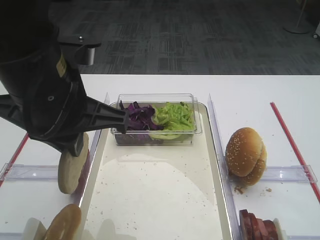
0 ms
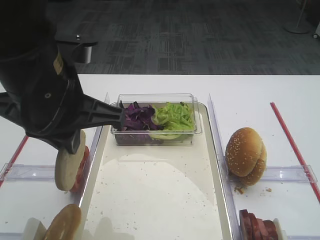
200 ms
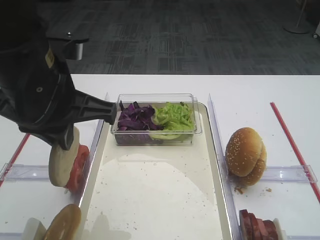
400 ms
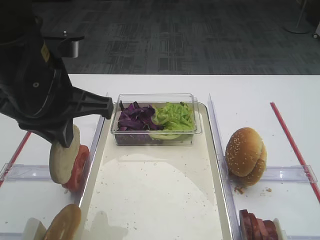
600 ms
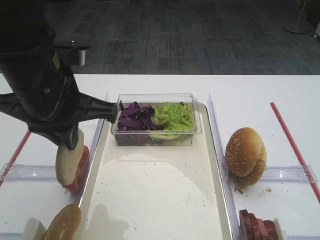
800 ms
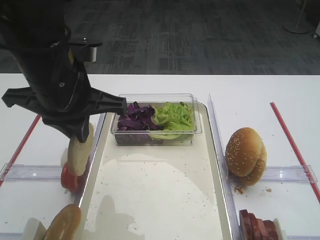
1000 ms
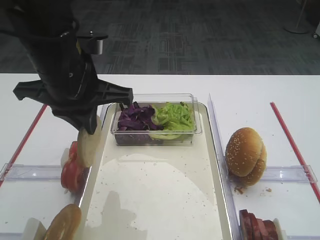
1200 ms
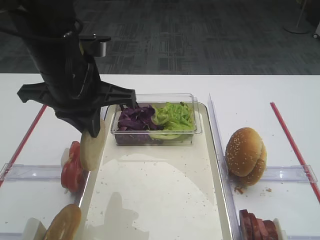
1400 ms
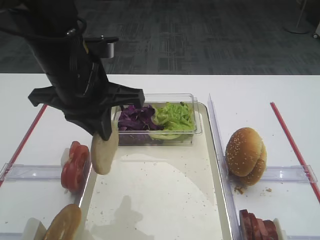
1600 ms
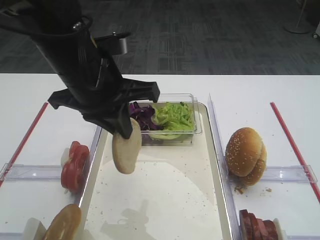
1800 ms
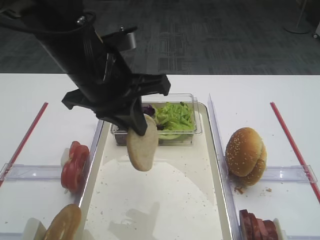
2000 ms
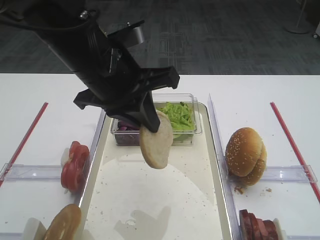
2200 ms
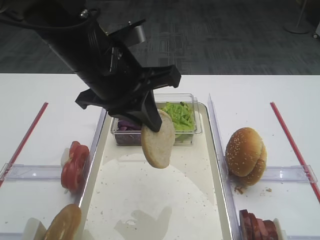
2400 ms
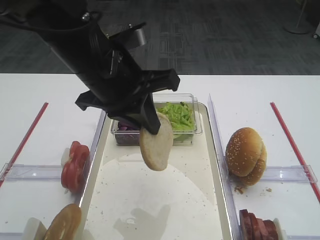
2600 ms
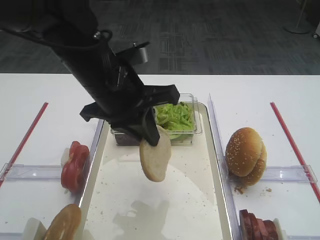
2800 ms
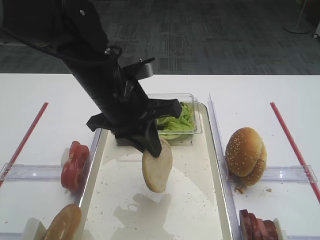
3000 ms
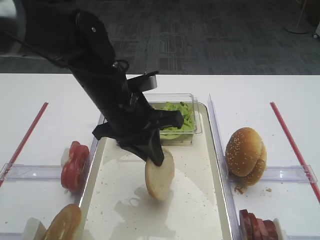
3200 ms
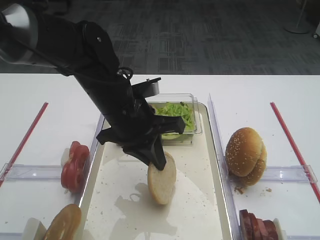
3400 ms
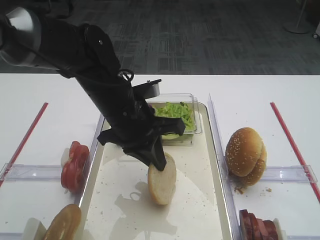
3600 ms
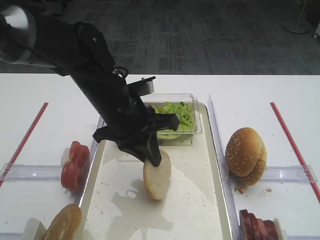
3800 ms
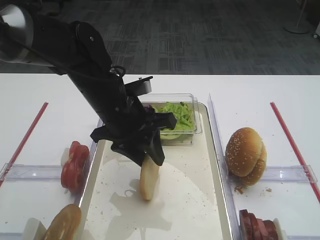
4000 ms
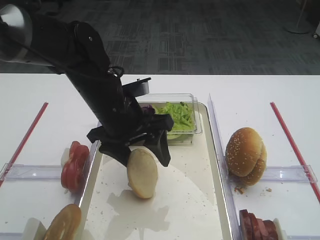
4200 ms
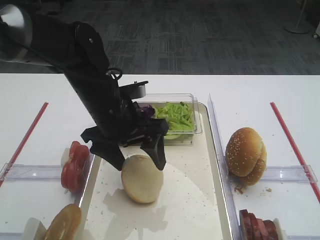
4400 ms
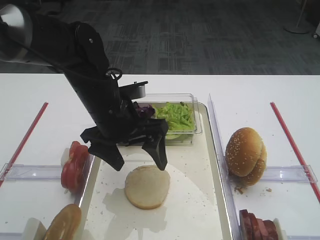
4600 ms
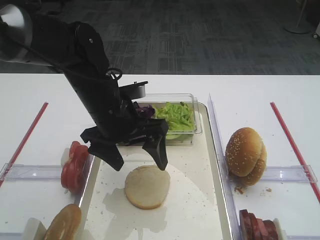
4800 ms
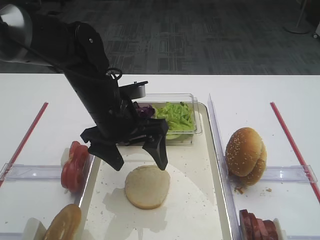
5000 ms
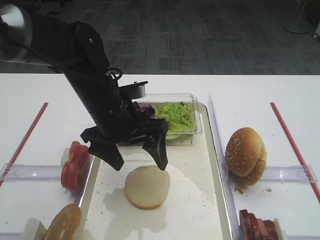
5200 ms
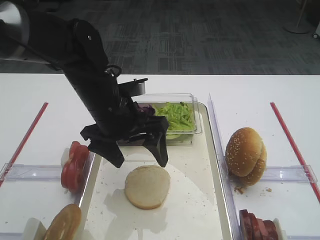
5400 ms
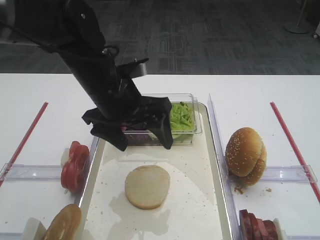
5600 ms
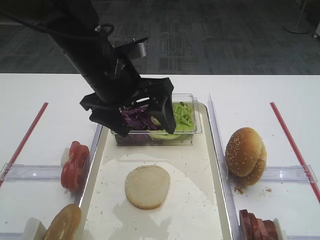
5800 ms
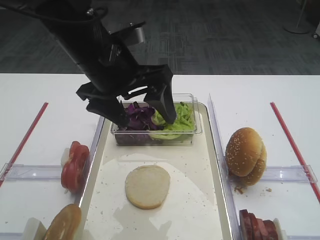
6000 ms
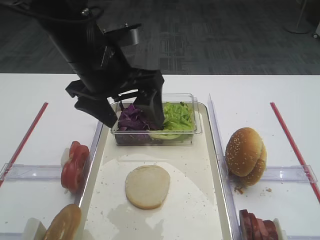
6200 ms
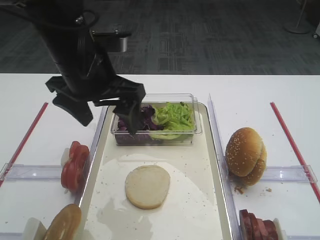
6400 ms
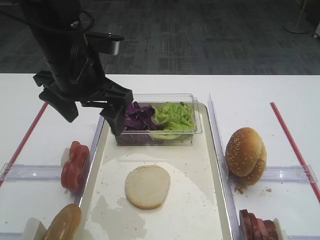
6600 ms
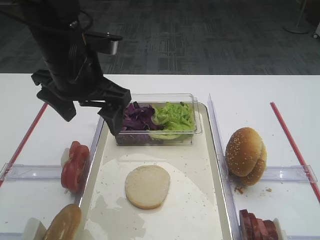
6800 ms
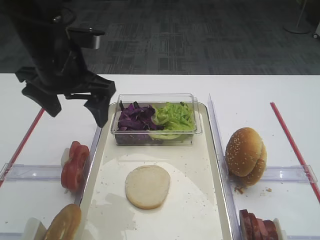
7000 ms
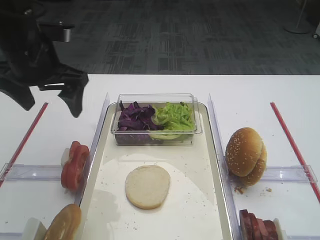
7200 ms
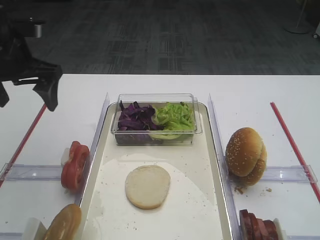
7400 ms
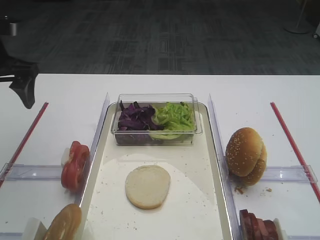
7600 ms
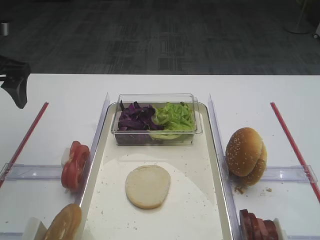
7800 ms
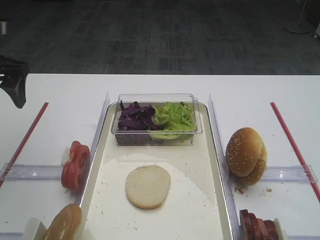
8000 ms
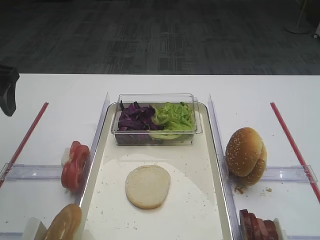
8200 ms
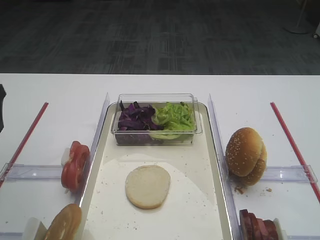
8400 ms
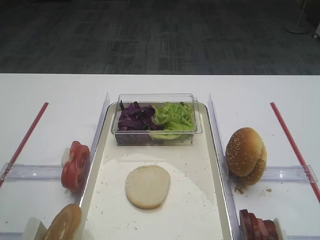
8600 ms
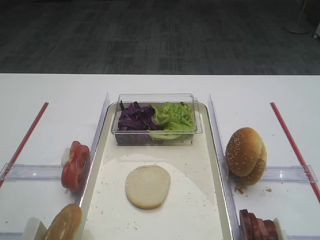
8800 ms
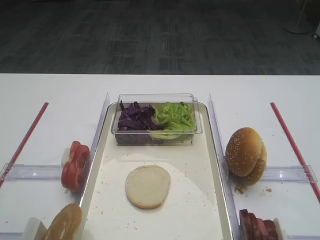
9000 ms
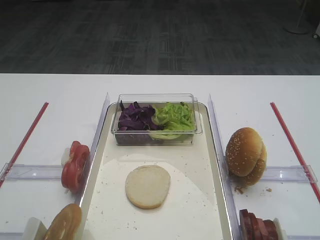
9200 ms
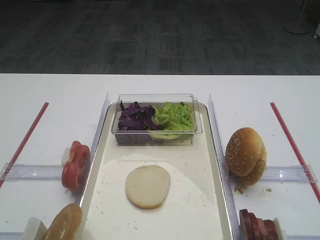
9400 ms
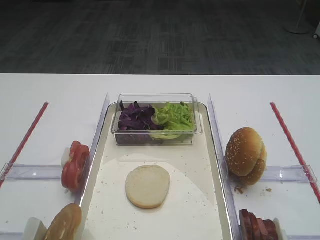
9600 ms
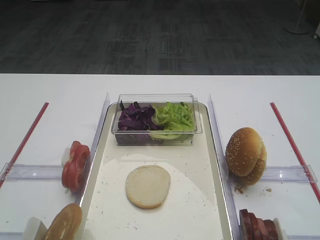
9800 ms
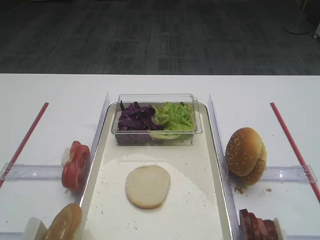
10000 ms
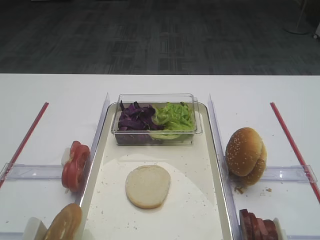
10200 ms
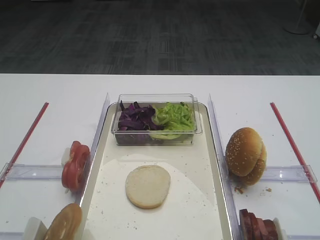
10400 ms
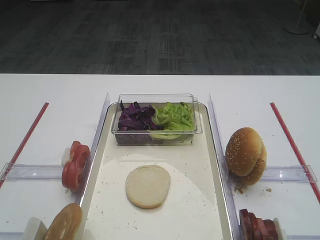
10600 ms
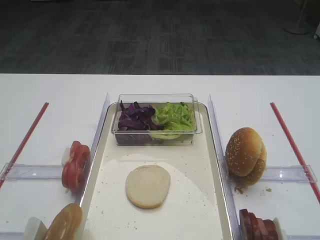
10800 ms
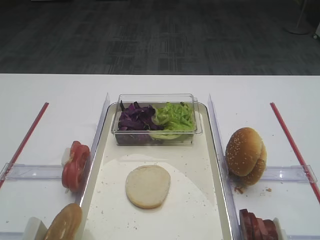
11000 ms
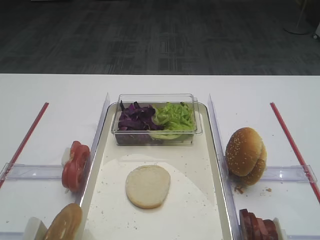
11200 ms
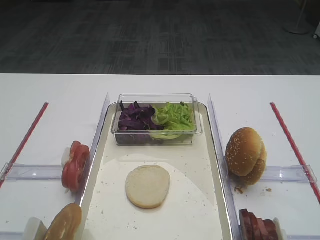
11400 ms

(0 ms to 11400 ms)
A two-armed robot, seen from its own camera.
Step, 0 ms - 4800 ms: Place the bread slice on the tray with the left gripper.
0 ms - 1400 ms: The left gripper shifts roughly 5 cm forward.
2800 ms - 4200 ms: The left gripper goes about 5 cm downward, and opens its fingers.
4200 ms - 5600 ms: The grippers move only a little.
5600 ms - 7200 ms: The left gripper travels to the left by roughly 10 cm.
7200 ms - 8600 ms: The left gripper heads backward and to the left, covering roughly 15 cm.

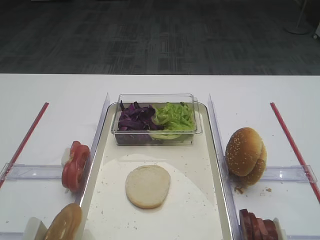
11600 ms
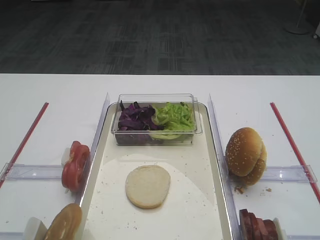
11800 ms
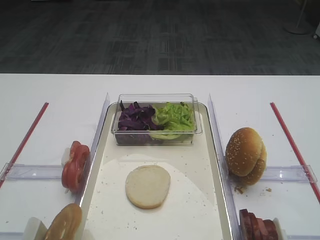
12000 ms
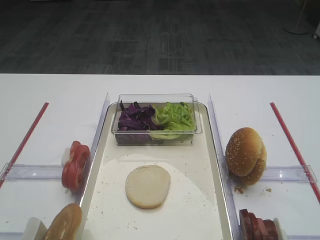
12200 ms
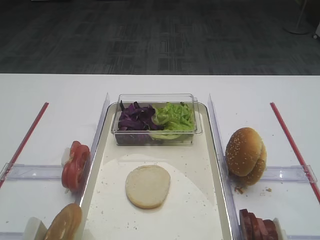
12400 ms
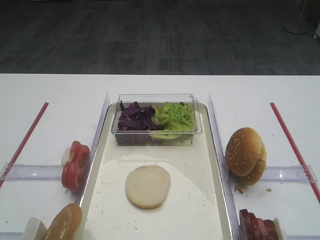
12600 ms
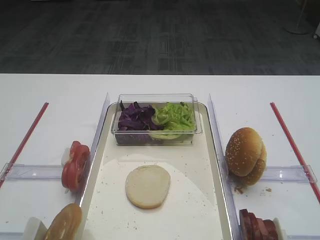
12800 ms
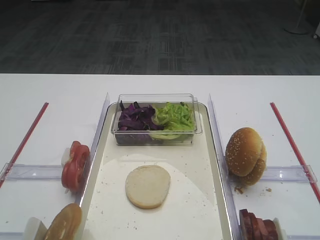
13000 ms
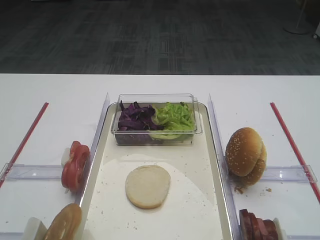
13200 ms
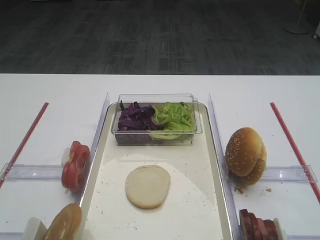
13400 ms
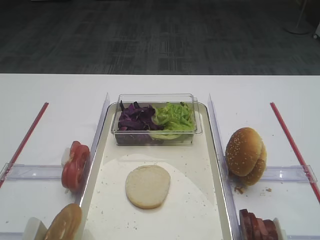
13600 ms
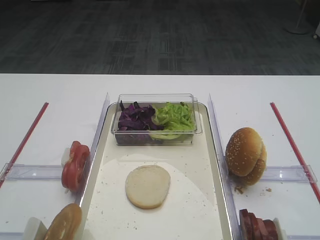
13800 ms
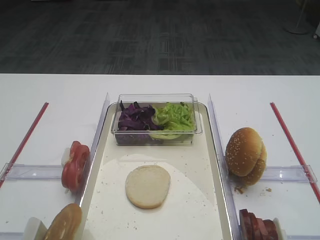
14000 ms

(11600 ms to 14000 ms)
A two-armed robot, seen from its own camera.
11600 ms - 14000 ms: The two grippers keep their place.

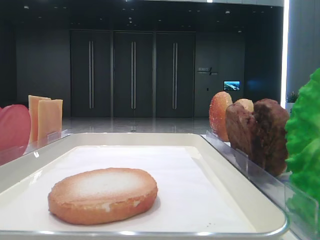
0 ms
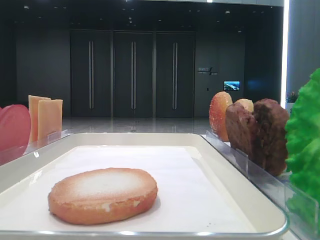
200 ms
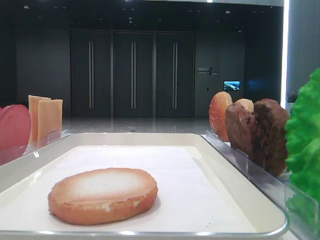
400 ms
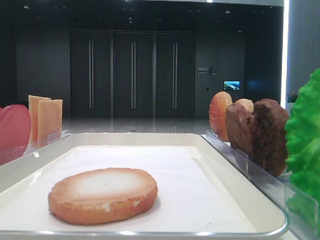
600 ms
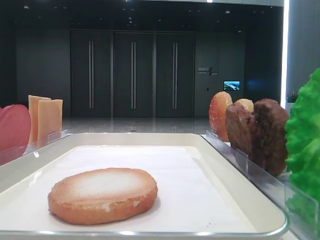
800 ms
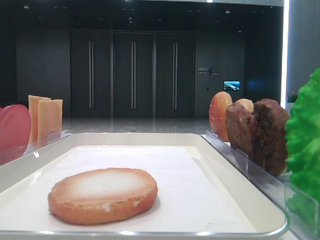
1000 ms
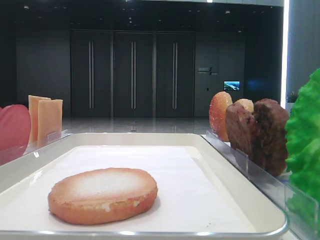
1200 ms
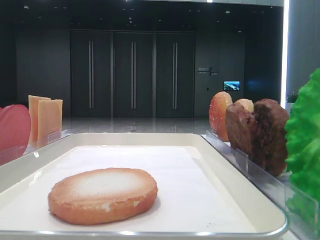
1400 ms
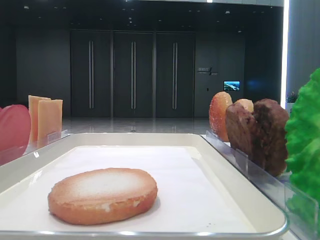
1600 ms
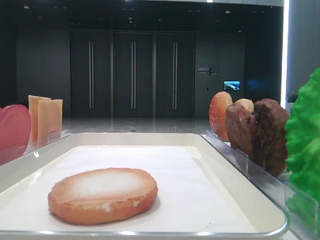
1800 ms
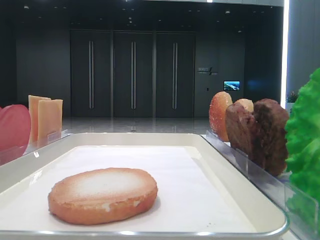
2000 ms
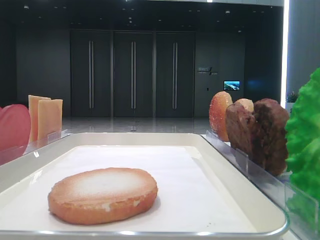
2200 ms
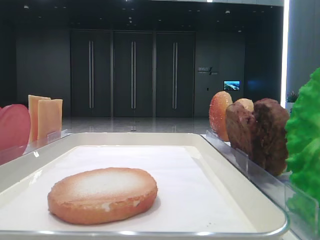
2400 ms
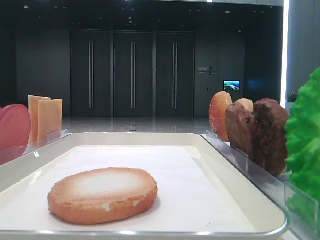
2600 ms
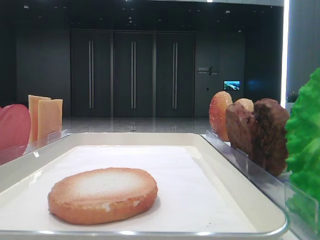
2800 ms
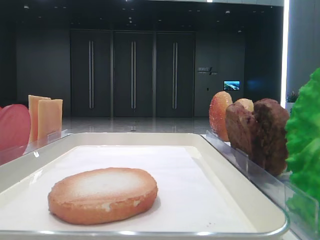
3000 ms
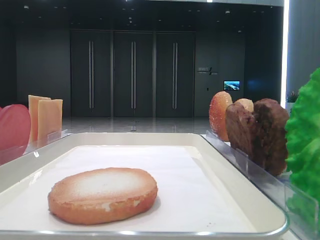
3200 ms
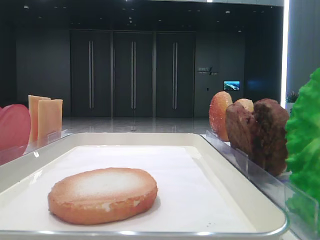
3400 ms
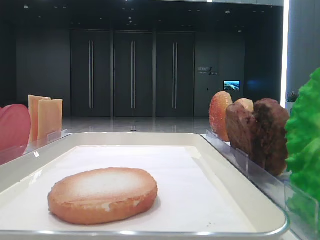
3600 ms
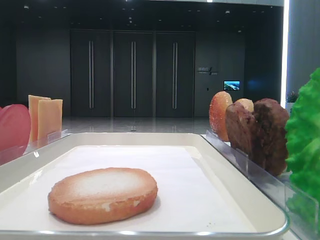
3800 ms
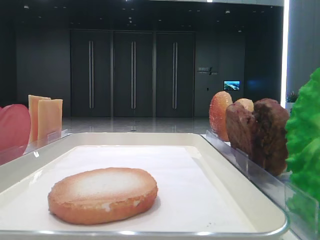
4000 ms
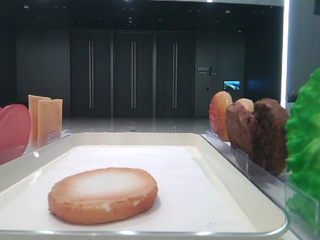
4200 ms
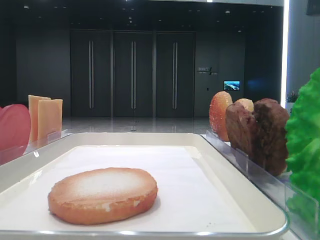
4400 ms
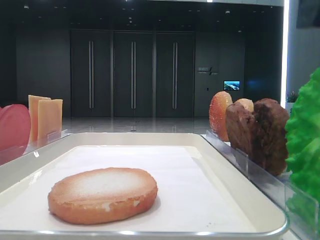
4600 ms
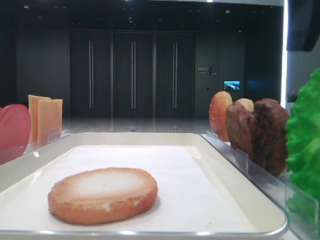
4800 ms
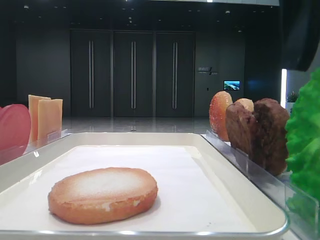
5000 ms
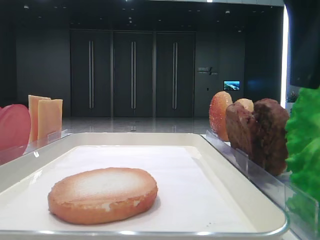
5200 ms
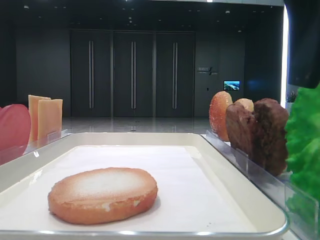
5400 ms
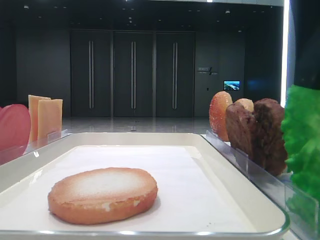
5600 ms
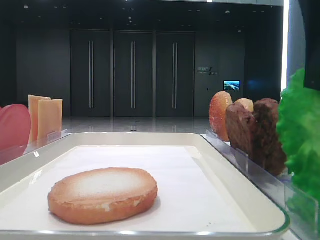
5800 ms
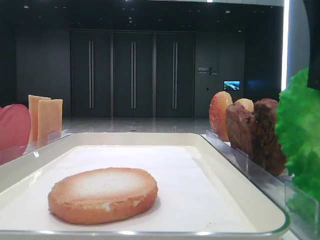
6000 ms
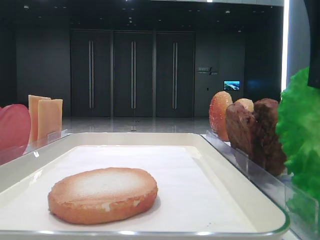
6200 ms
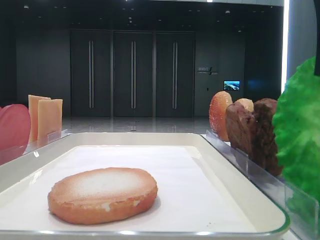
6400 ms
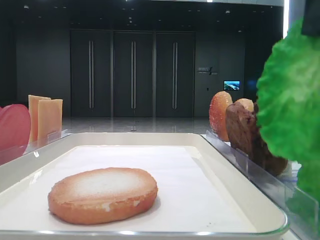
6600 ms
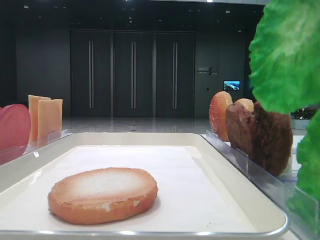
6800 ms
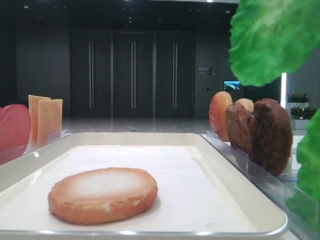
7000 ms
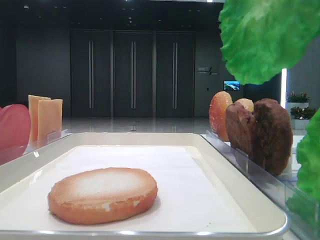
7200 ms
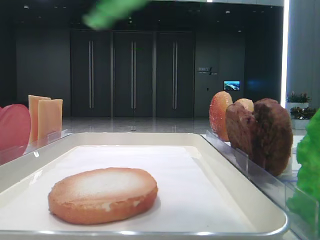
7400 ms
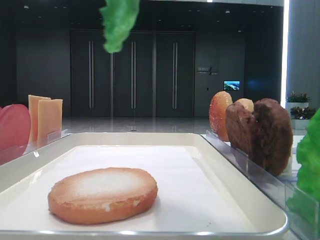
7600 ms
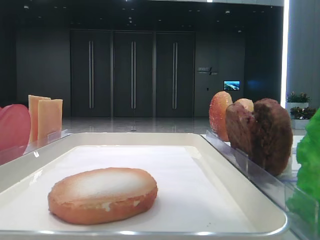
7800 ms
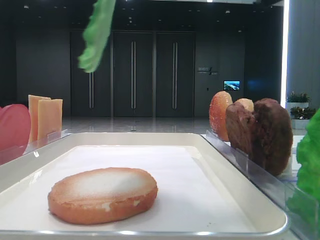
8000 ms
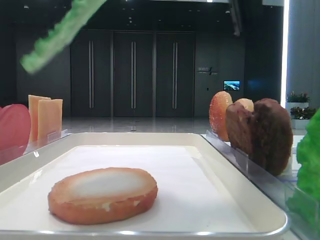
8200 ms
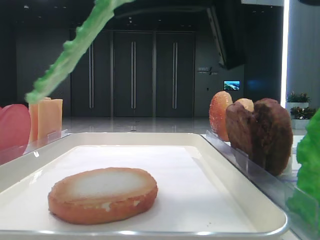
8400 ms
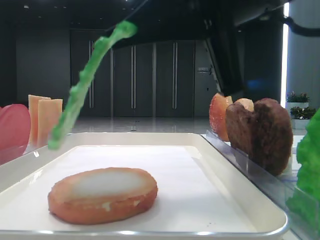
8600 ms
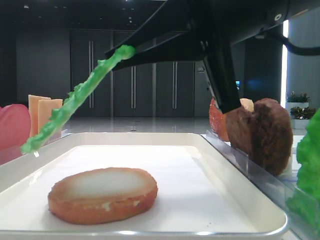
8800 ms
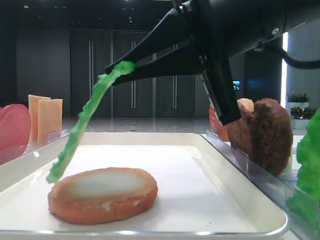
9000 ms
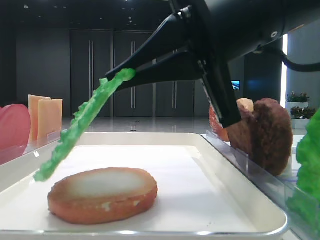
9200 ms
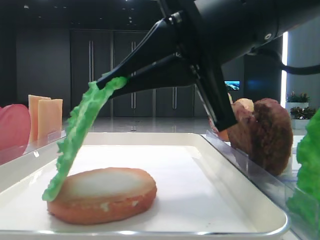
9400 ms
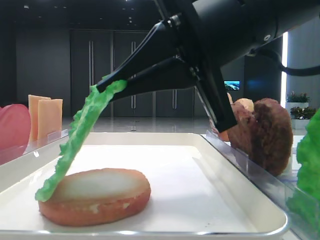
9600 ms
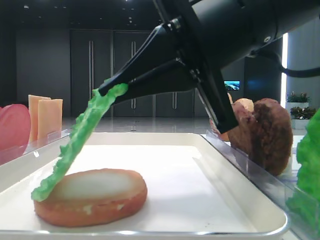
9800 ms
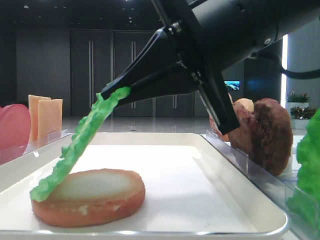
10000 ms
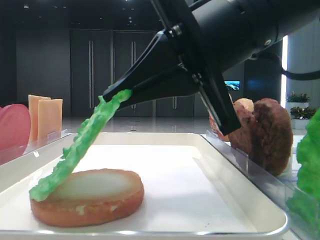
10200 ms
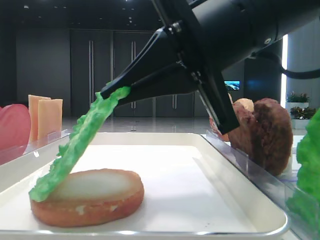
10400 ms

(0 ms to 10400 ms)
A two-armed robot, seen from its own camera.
Step, 0 ms - 5800 ms: Grab the lettuce leaf with the right hand.
4400 ms - 6000 ms: The right gripper shifts by roughly 5 cm, and closes its fingers.
6000 ms - 7400 ms: The right gripper moves upward, approximately 10 cm.
7400 ms - 9000 ms: The right gripper moves downward and forward, about 20 cm.
9000 ms - 10400 ms: The grippers stay close to where they were, moving slightly.
